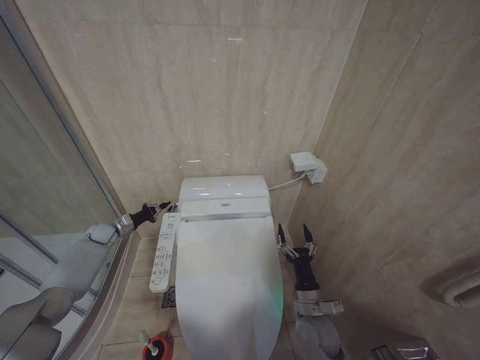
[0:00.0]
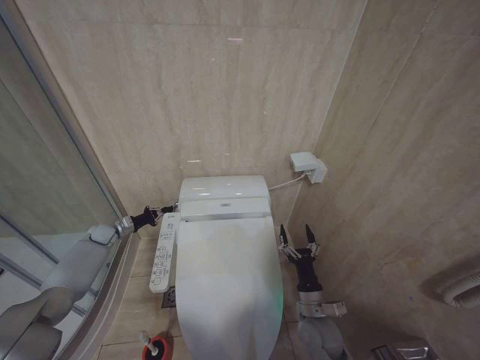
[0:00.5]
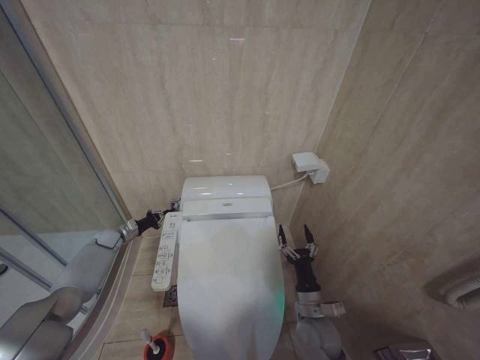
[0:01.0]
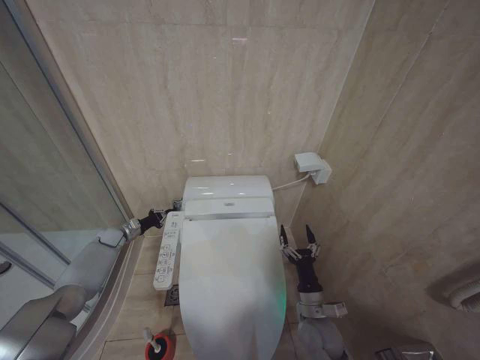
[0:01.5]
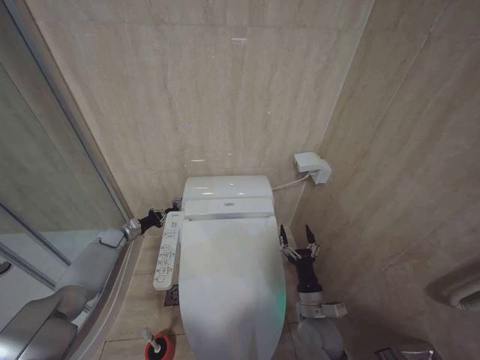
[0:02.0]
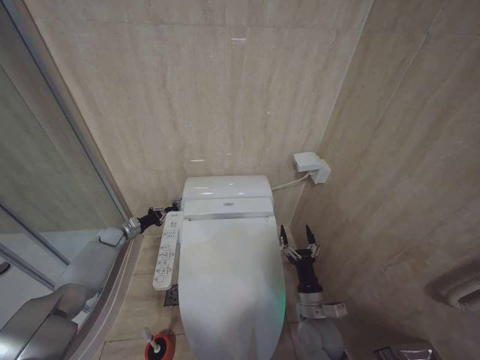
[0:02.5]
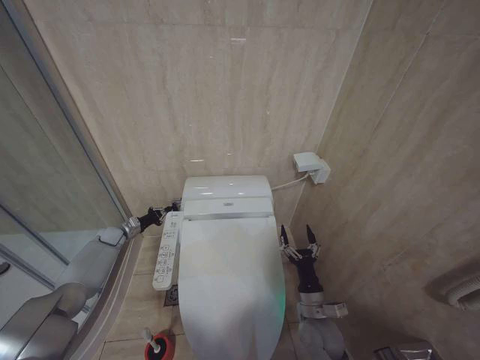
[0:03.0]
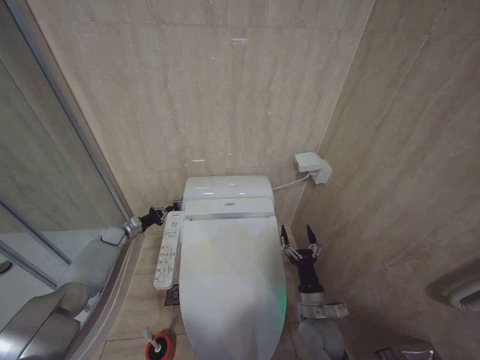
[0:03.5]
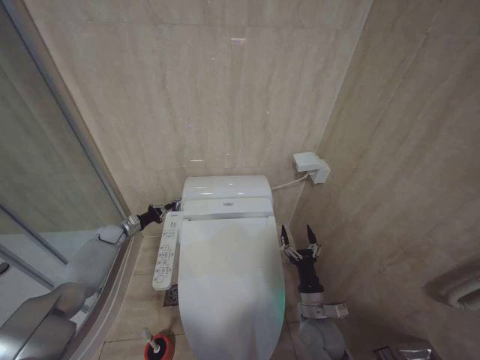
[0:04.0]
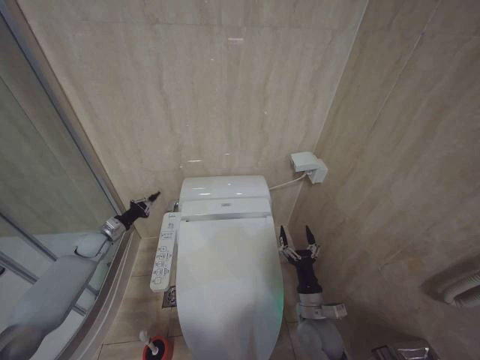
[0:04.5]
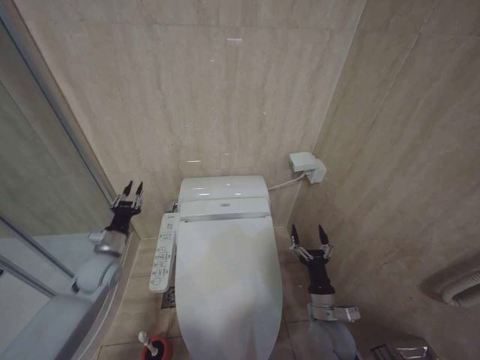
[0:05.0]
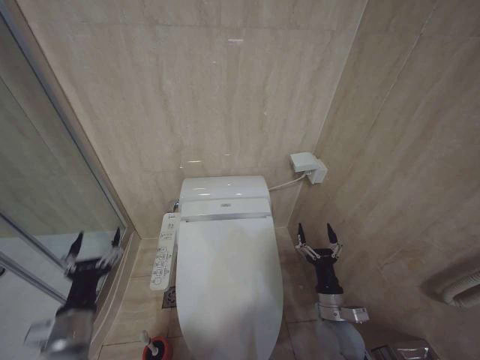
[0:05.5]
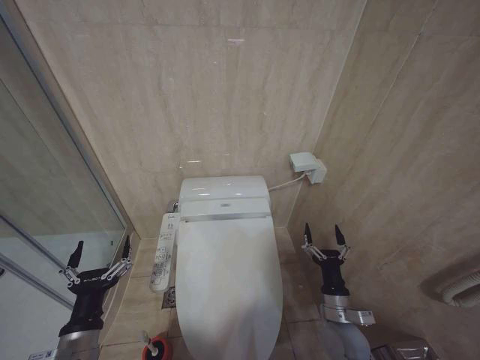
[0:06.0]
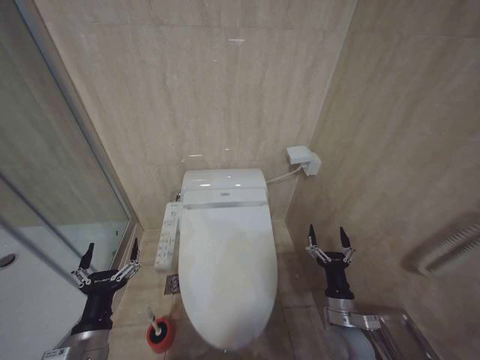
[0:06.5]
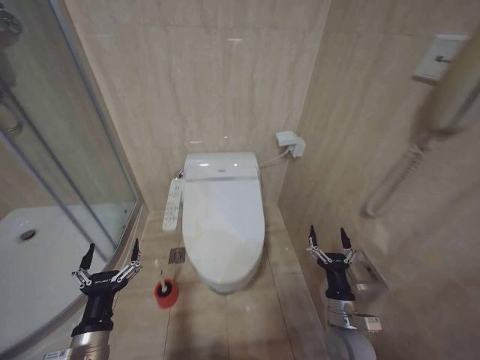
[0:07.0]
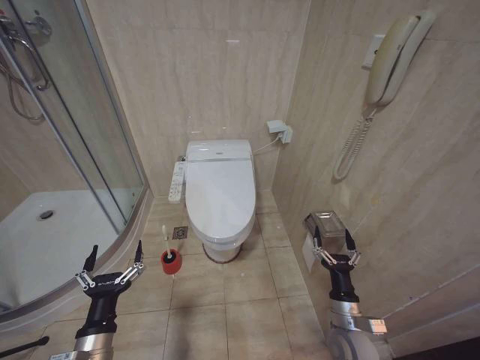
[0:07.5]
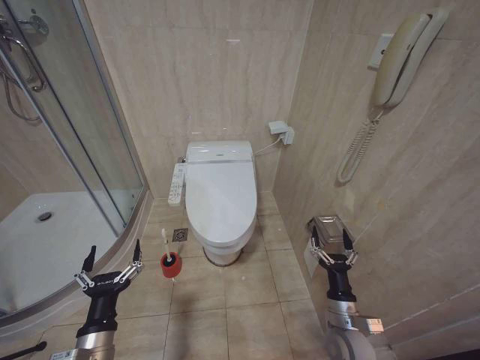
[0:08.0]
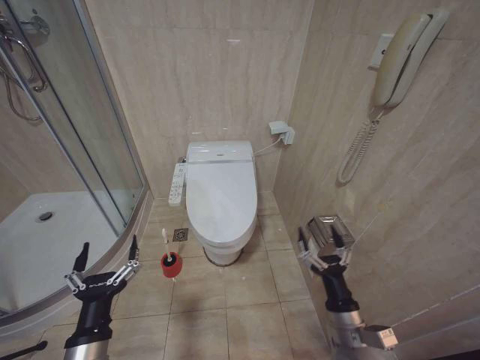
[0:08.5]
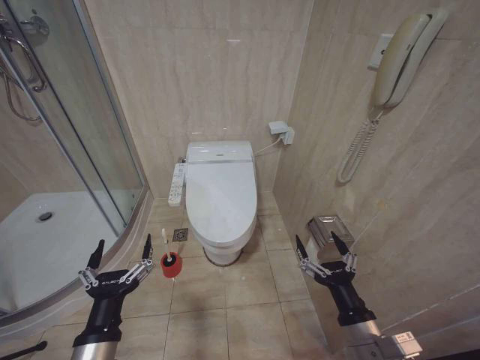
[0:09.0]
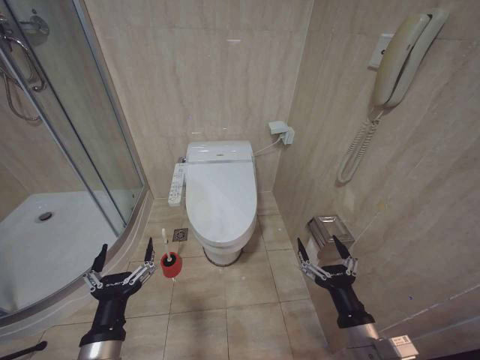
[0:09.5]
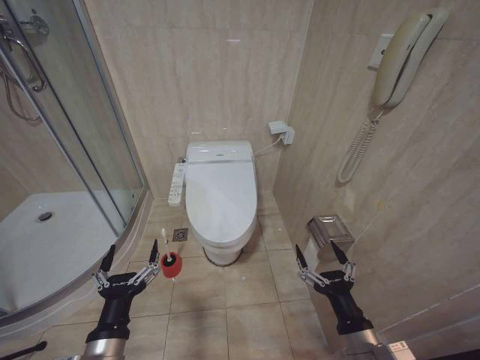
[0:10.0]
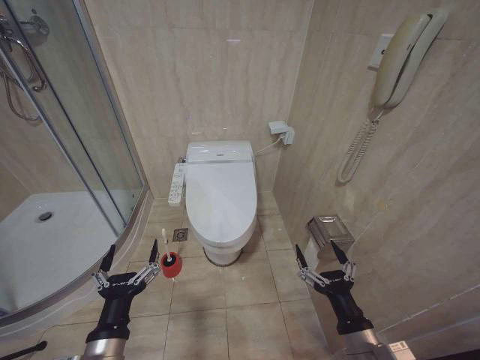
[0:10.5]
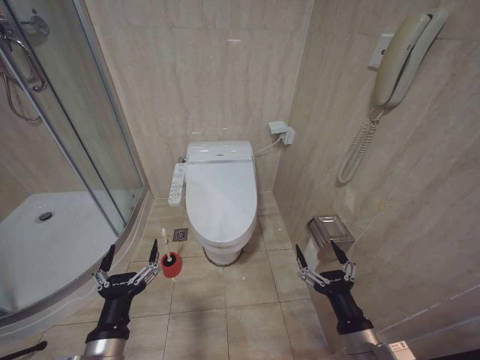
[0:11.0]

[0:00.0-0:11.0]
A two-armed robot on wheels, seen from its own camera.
Task of the whole recording: Open the toilet lid, clean the toilet bowl with a toilet brush, close the toilet lid, and flush.
0:00.0 to 0:02.0: The grippers move only a little.
0:02.0 to 0:03.5: Neither gripper changes place.
0:03.5 to 0:05.5: The left gripper goes some 35 cm backward, and opens up.
0:05.5 to 0:07.5: The left gripper moves backward and to the right, about 10 cm, and opens.
0:07.5 to 0:09.0: The right gripper heads upward and backward, covering approximately 15 cm. Meanwhile the left gripper goes about 5 cm upward.
0:09.0 to 0:11.0: The grippers move only a little.
